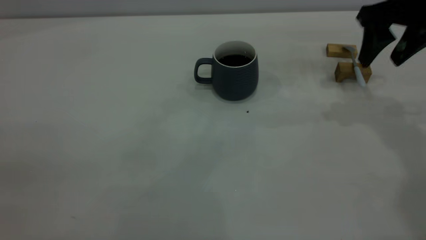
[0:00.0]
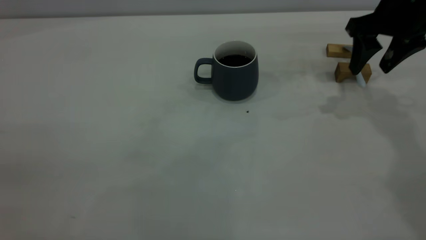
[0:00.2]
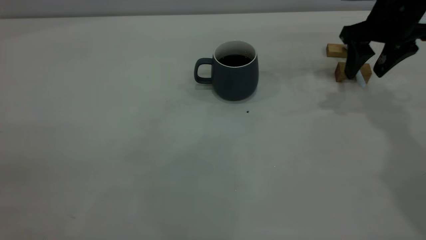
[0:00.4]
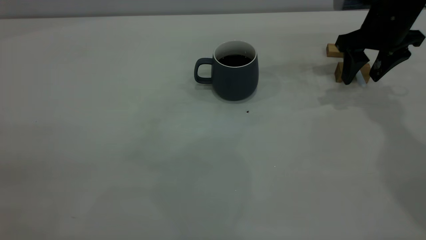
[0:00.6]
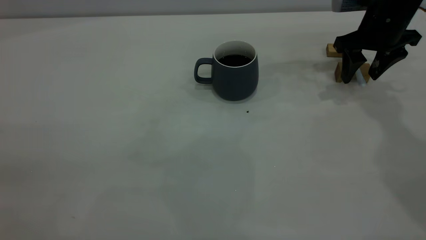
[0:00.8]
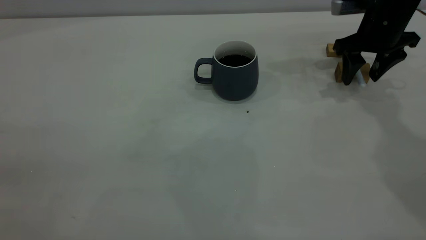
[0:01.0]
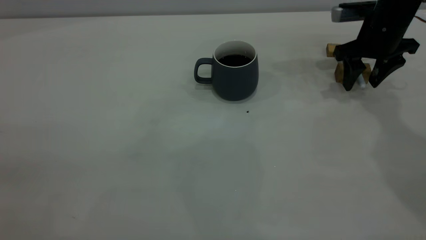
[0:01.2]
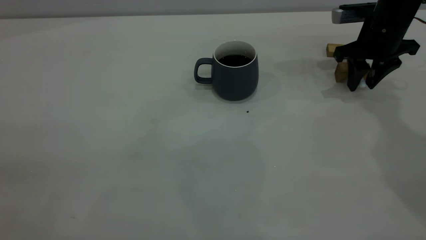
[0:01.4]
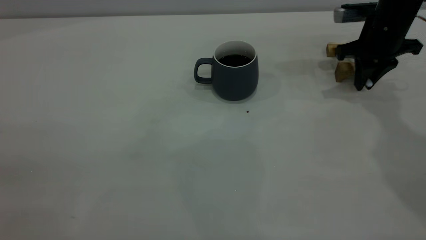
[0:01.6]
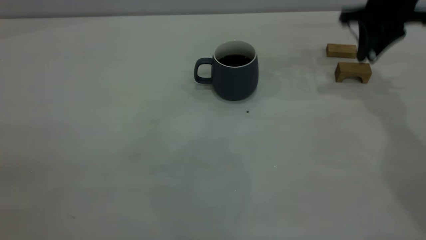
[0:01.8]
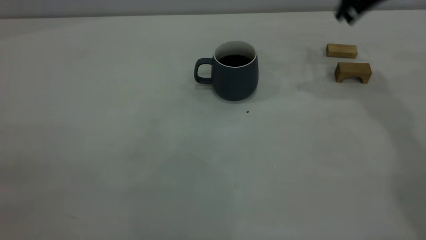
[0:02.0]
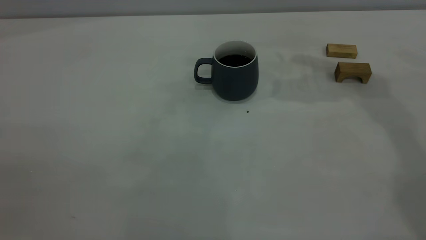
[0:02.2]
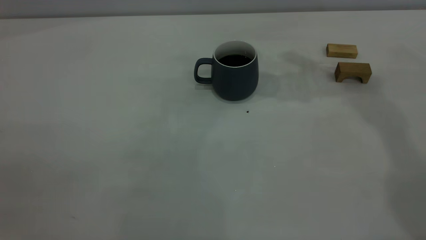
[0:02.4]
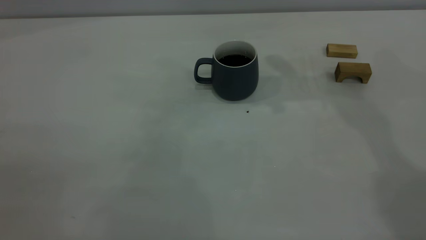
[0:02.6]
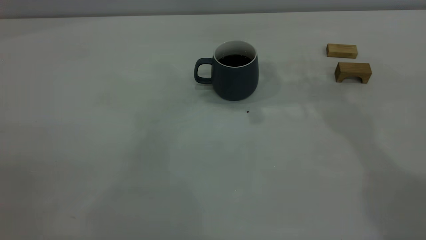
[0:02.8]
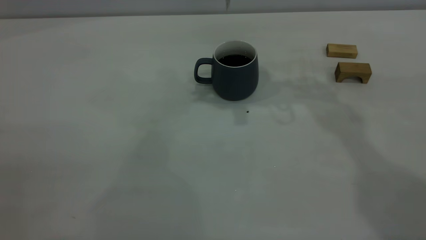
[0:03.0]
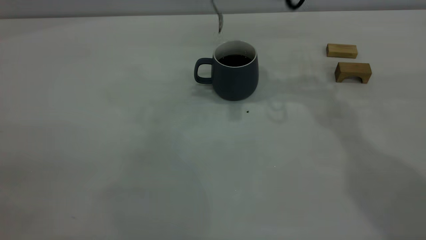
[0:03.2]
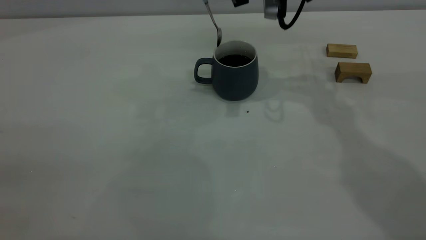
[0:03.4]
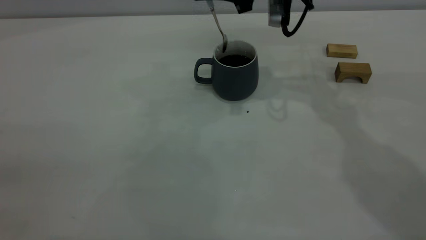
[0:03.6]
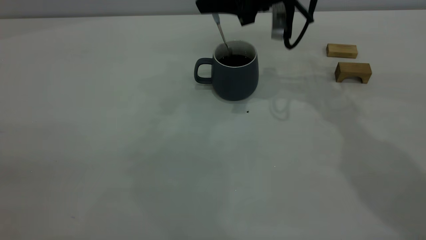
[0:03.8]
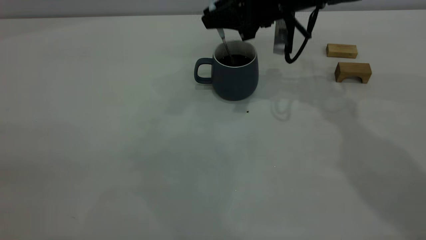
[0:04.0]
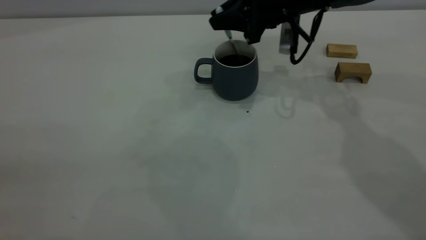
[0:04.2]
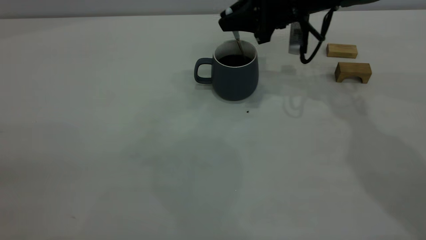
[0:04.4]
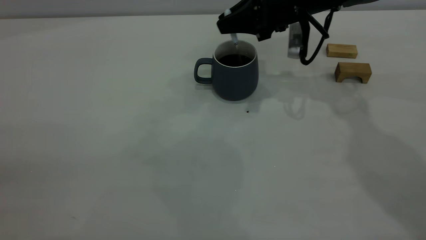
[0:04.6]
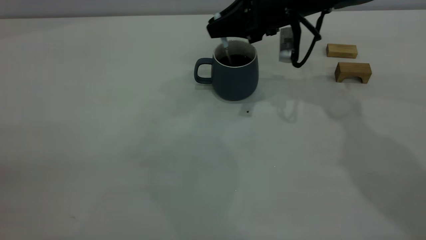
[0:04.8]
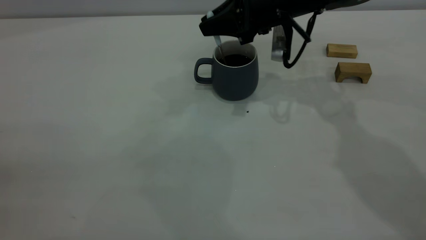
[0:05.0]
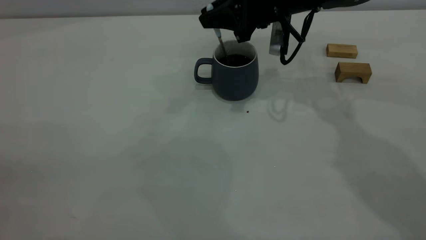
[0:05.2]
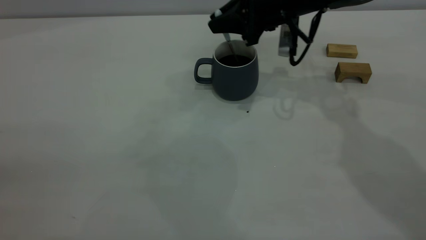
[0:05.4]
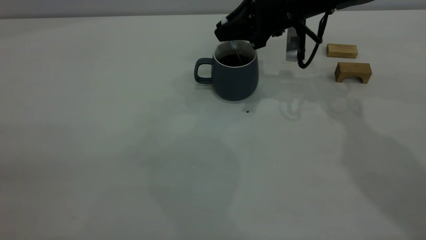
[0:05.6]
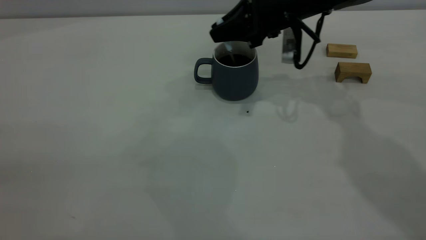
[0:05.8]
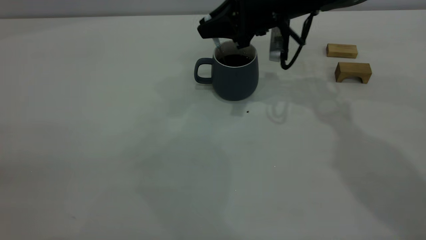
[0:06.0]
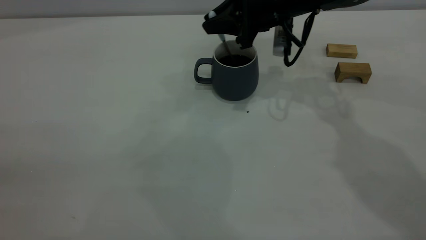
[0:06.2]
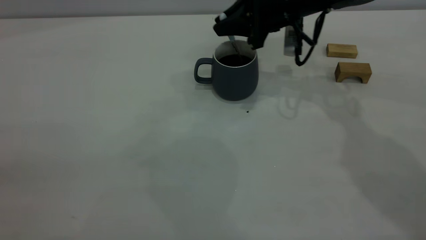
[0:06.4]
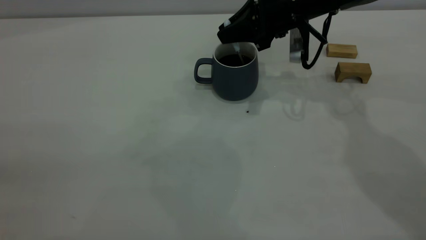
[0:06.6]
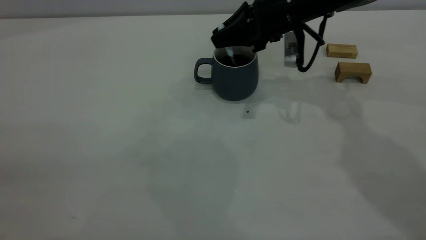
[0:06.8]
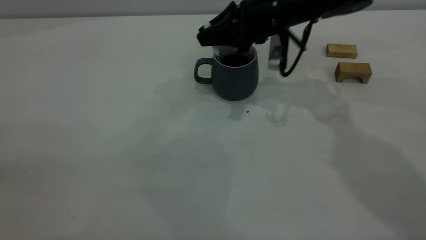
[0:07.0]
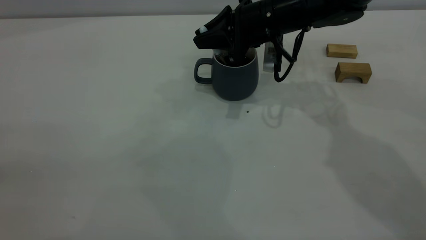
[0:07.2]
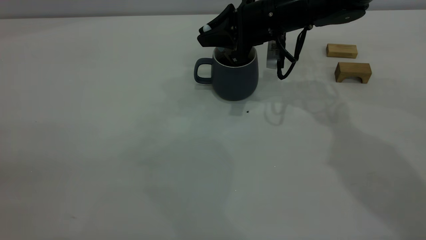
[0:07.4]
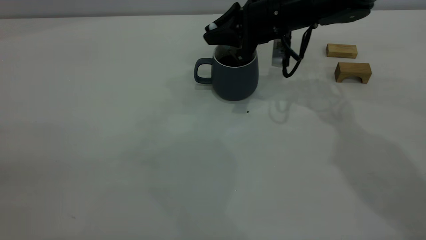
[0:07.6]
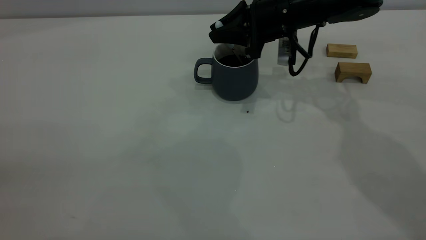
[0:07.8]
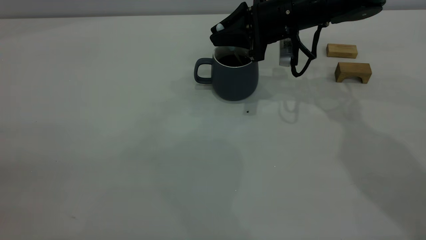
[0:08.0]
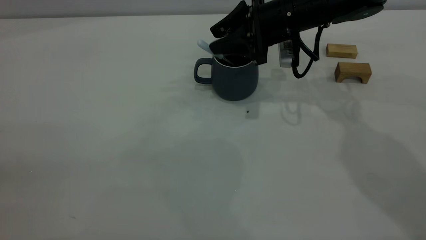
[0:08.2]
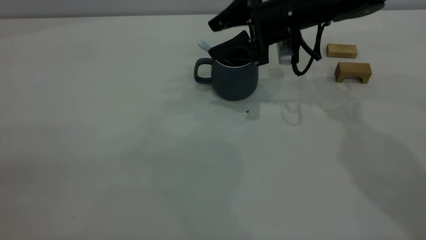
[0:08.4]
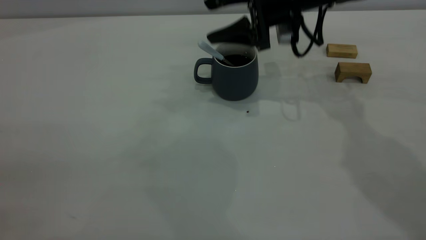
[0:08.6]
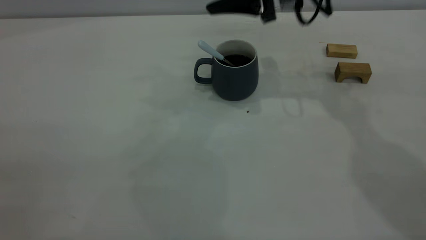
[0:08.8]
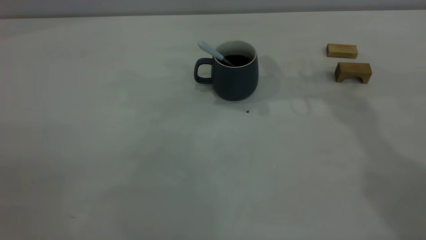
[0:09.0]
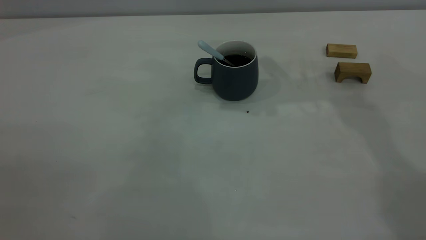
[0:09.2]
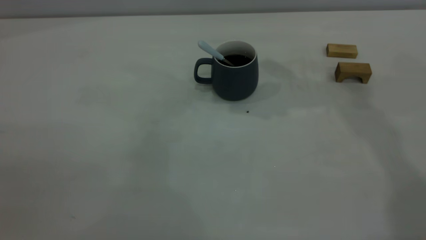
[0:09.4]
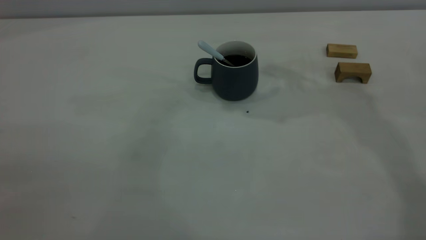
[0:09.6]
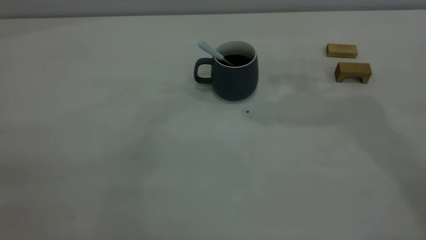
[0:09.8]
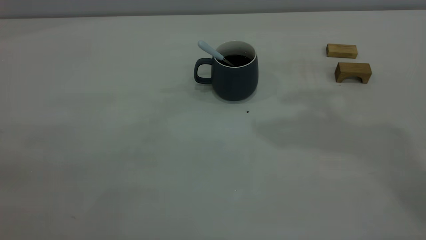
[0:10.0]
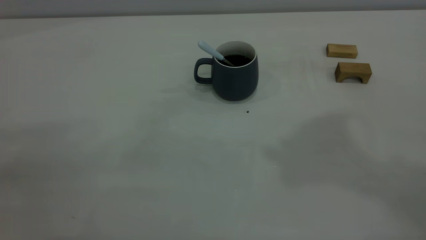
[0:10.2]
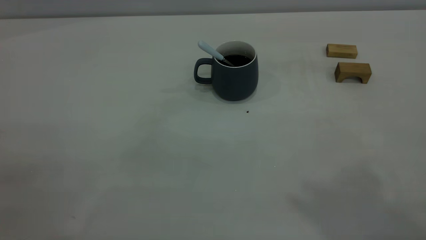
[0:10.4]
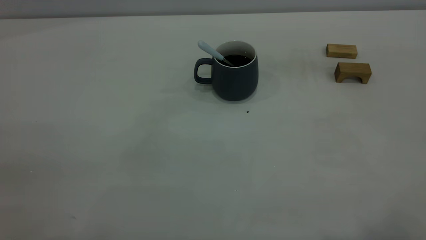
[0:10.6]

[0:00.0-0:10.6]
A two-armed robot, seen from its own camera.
Step, 0:02.0 to 0:08.6: Stir the coffee in the cup.
0:00.0 to 0:01.6: The right gripper moves downward and forward, roughly 10 cm, and closes its fingers.
0:01.6 to 0:03.0: The right gripper moves to the left and upward, some 25 cm.
0:03.0 to 0:04.6: The right gripper goes about 15 cm downward.
0:04.6 to 0:07.6: The grippers stay close to where they were, moving slightly.
0:07.6 to 0:09.0: The right gripper travels upward by roughly 15 cm, and opens its fingers.

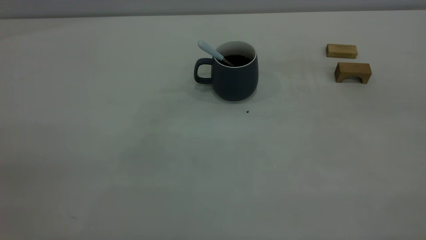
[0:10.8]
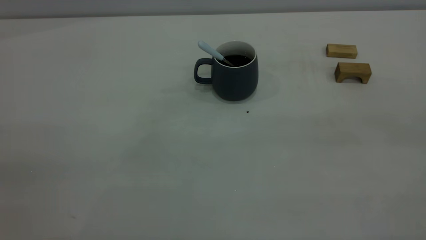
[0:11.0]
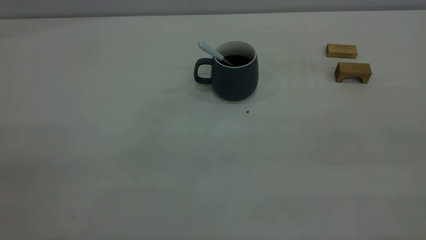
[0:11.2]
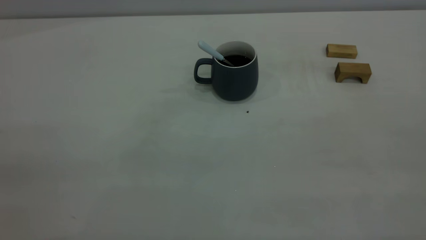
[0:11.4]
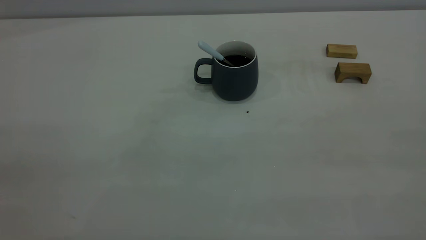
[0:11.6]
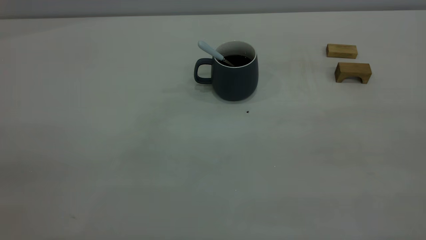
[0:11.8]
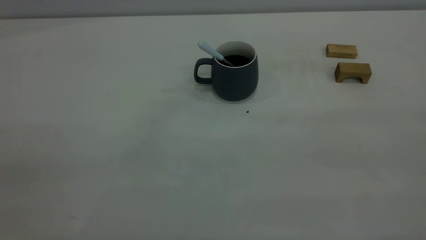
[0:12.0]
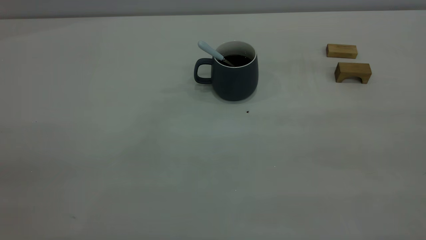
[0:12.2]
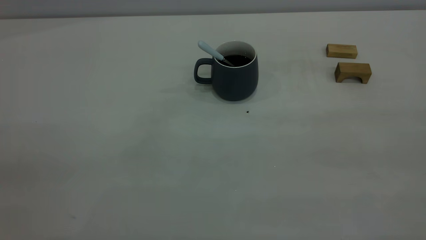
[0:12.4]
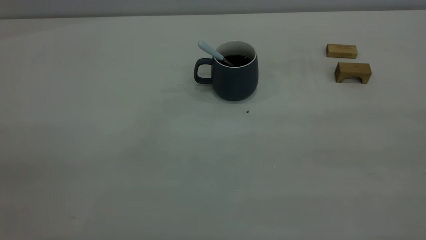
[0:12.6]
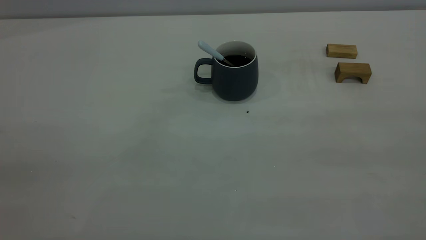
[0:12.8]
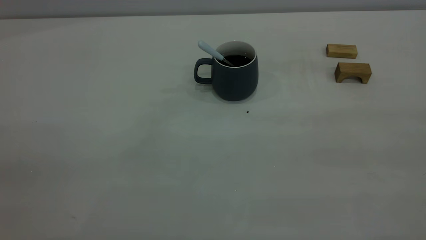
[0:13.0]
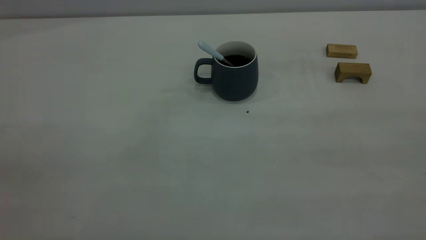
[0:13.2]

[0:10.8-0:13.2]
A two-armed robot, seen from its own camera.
0:12.0 to 0:13.2: Both grippers stay put.
